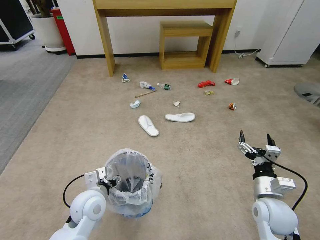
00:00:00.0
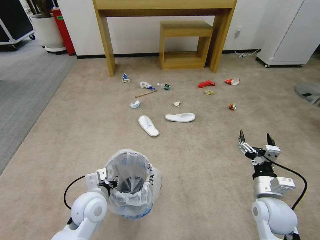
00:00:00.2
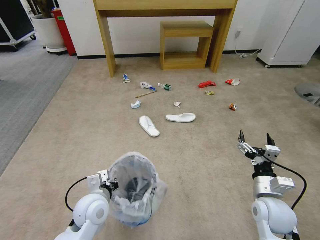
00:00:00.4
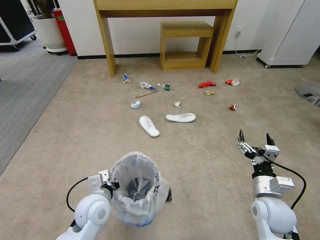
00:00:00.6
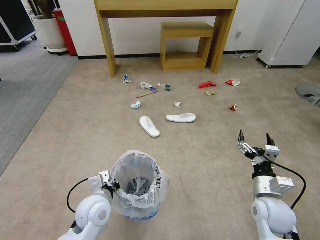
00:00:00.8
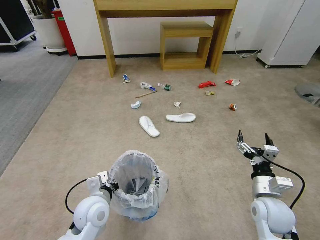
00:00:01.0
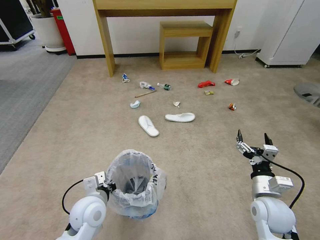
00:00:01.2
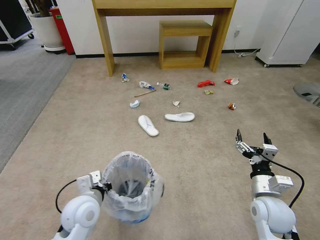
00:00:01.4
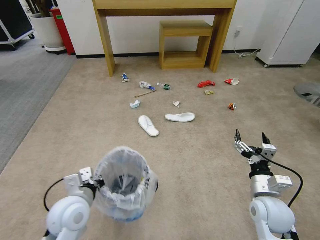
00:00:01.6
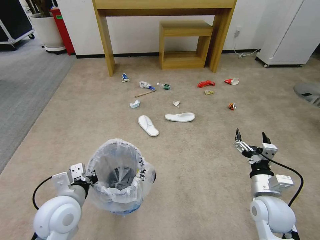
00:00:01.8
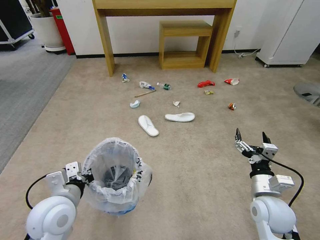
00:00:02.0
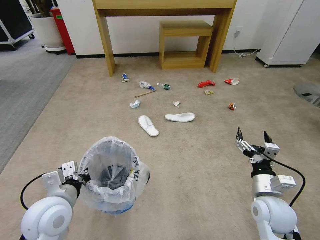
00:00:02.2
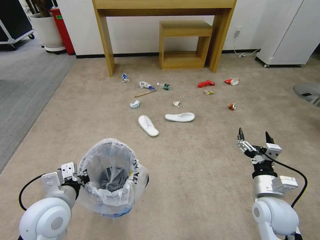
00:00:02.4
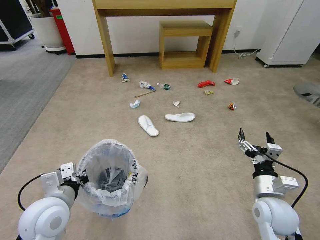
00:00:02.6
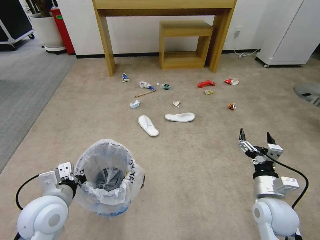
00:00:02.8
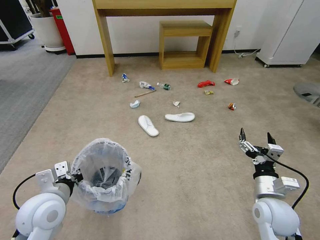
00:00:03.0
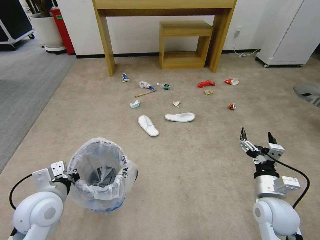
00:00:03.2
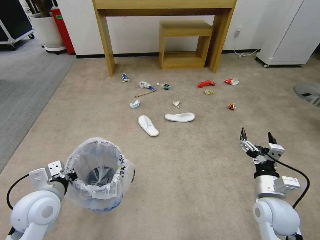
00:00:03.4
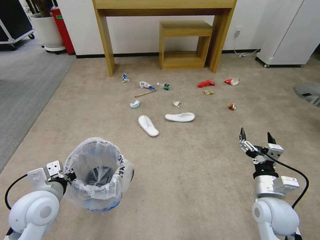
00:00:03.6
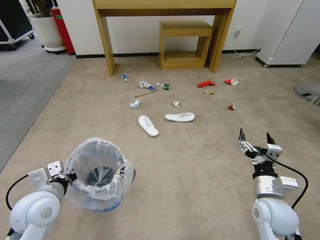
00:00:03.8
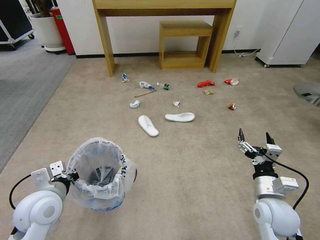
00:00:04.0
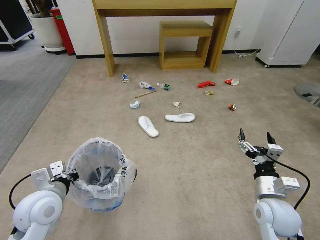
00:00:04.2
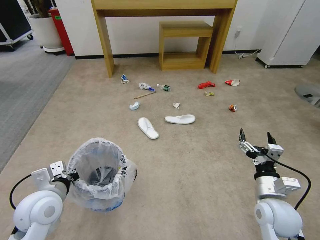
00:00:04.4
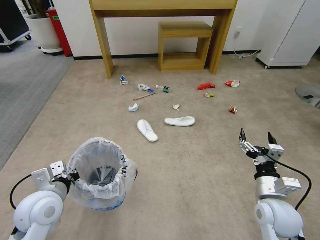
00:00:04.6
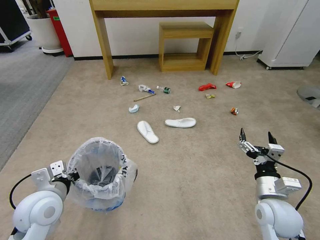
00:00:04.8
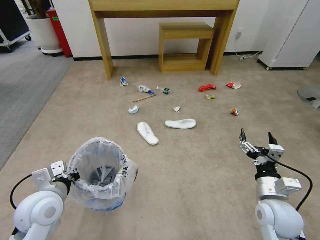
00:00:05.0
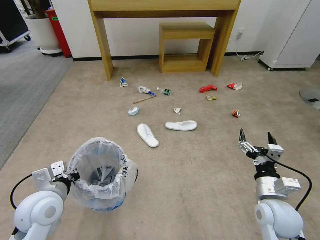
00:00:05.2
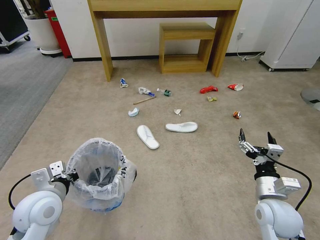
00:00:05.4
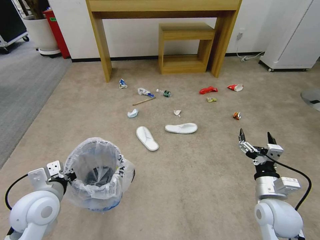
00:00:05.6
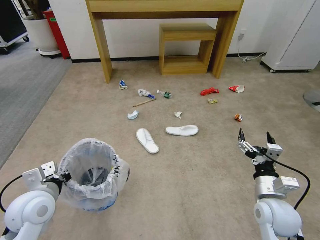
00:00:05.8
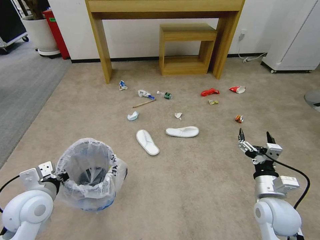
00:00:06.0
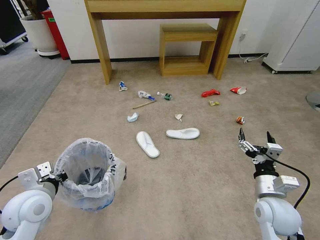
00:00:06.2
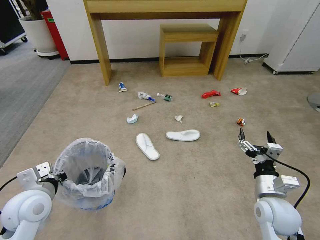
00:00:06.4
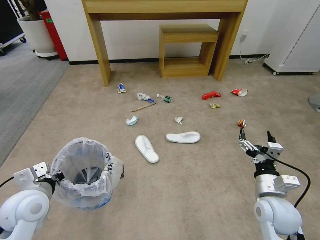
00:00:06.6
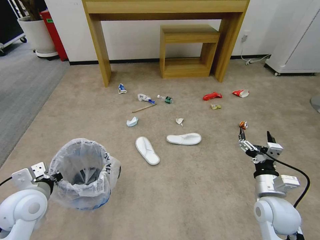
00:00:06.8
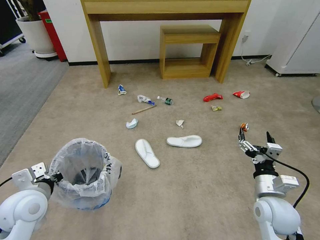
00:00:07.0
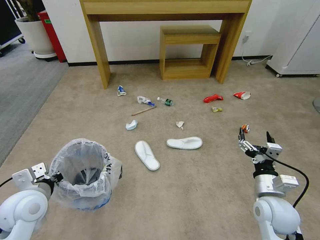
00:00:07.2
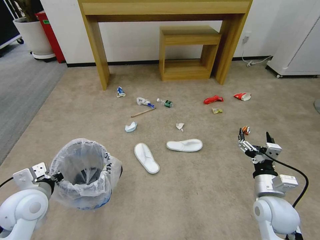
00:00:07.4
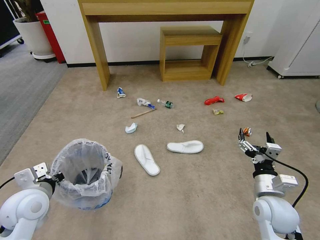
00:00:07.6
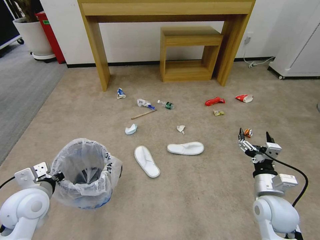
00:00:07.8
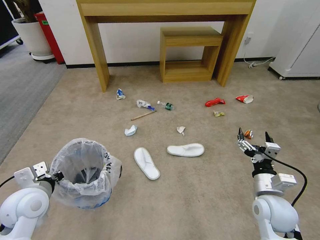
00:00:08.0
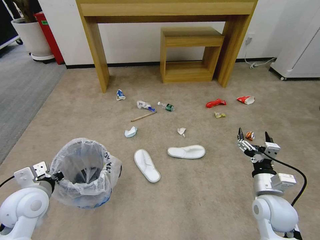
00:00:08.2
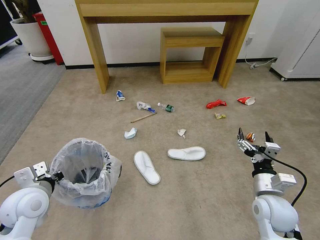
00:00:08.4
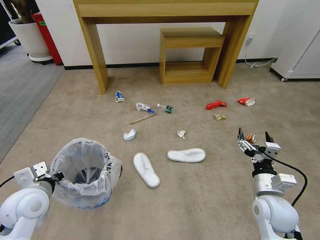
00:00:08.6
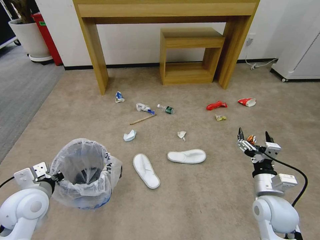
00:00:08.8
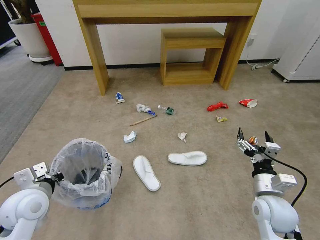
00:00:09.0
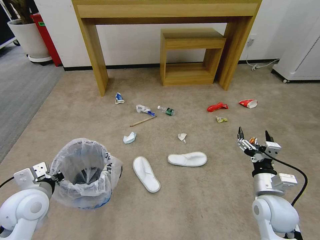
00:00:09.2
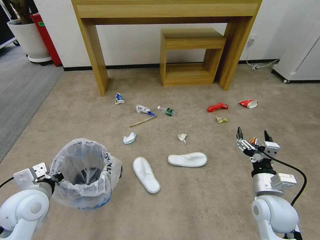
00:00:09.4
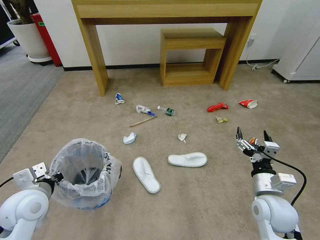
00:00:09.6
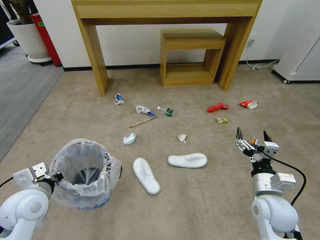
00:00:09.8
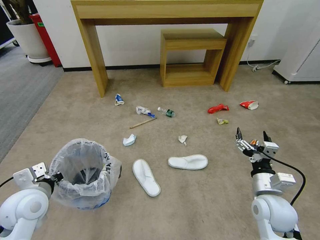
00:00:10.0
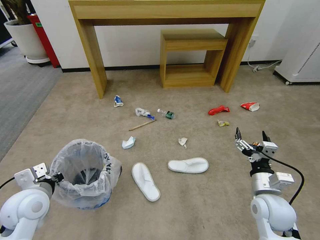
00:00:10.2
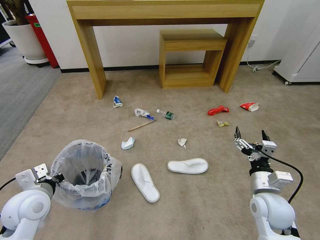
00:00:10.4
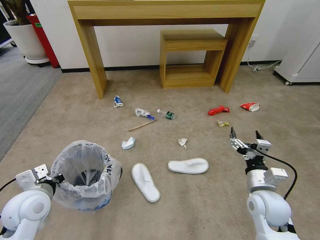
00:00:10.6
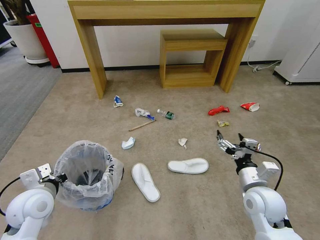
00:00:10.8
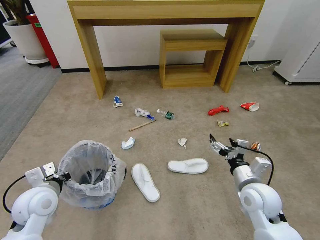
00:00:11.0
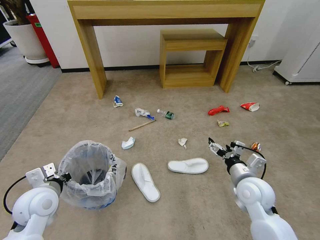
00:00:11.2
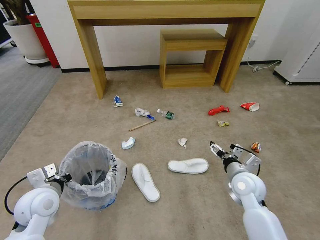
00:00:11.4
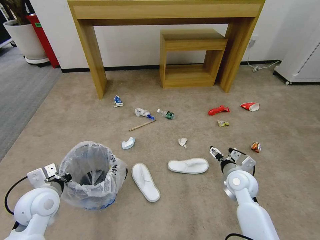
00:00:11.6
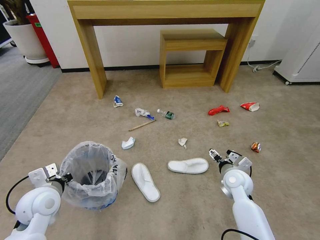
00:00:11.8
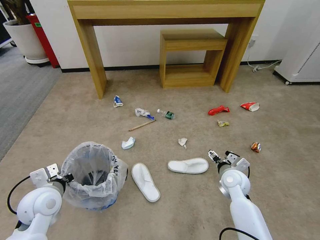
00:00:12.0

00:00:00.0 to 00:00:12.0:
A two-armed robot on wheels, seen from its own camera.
Task of the whole recording: Pick up the trash bin and place the garbage on the floor into it.
00:00:00.0 to 00:00:01.6: The left gripper shifts by some 5 cm, and closes up.
00:00:01.6 to 00:00:03.0: The left gripper moves to the left, some 5 cm.
00:00:03.0 to 00:00:04.4: There are only small adjustments of the grippers.
00:00:07.6 to 00:00:10.4: Both grippers stay put.
00:00:10.4 to 00:00:12.0: The right gripper travels forward and downward by approximately 10 cm.

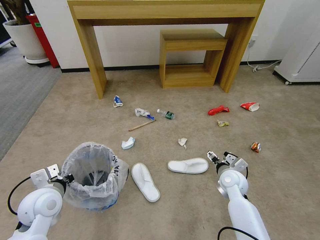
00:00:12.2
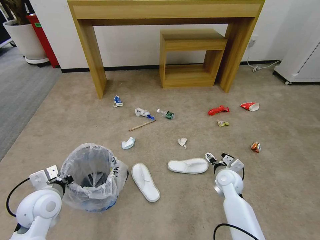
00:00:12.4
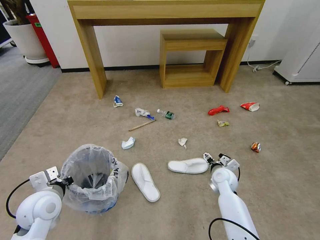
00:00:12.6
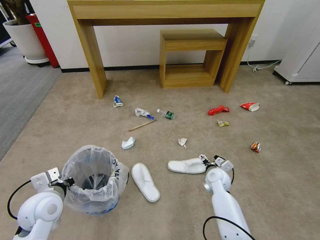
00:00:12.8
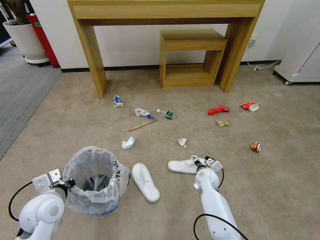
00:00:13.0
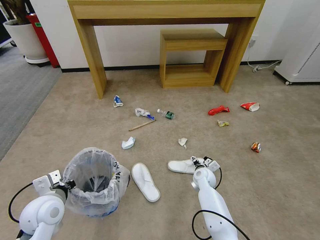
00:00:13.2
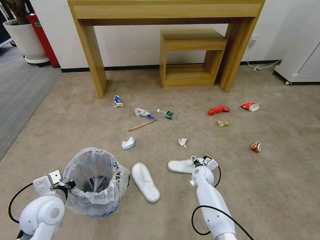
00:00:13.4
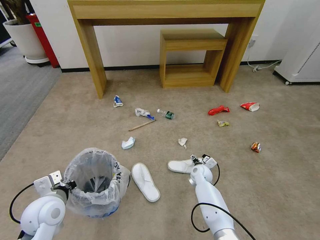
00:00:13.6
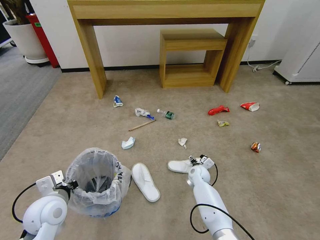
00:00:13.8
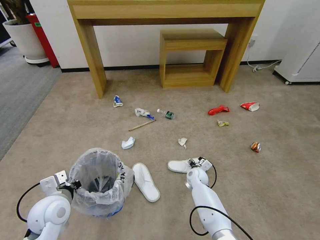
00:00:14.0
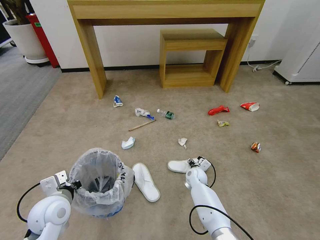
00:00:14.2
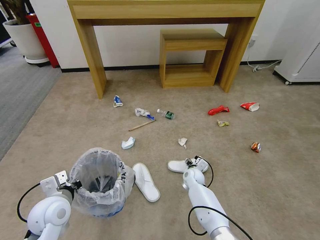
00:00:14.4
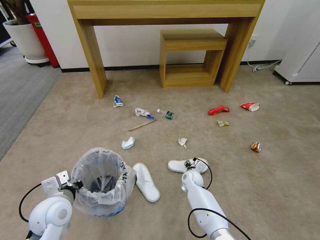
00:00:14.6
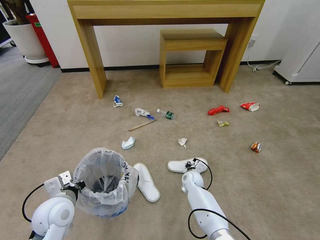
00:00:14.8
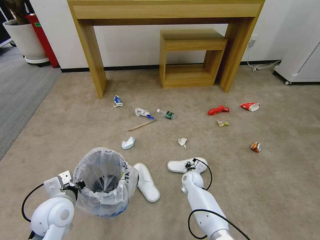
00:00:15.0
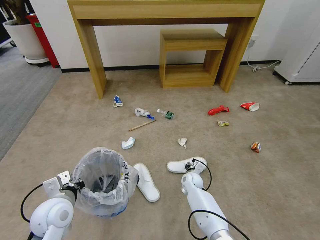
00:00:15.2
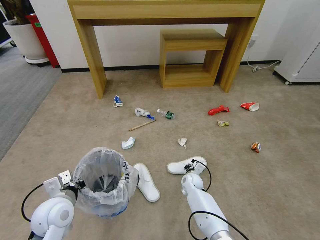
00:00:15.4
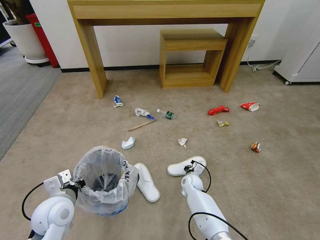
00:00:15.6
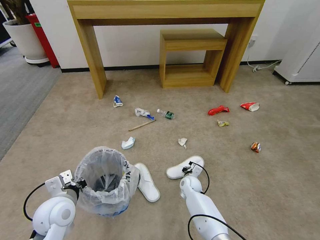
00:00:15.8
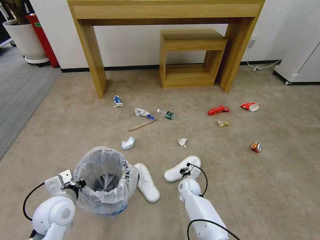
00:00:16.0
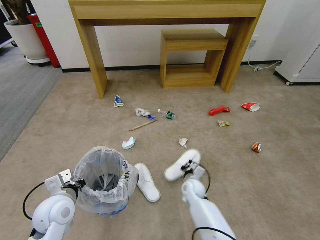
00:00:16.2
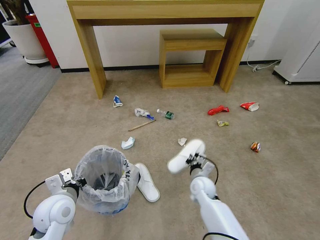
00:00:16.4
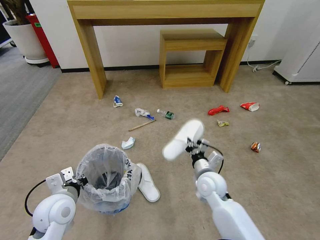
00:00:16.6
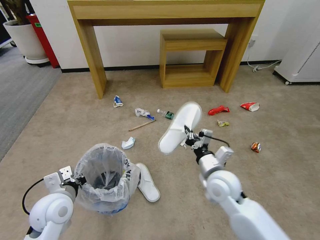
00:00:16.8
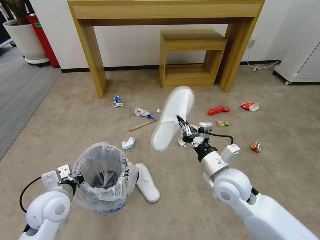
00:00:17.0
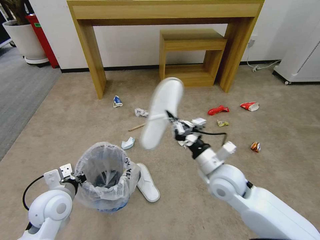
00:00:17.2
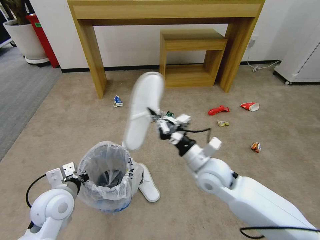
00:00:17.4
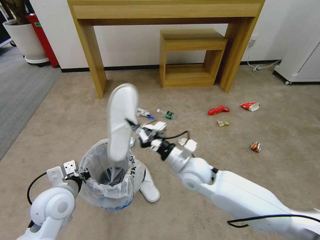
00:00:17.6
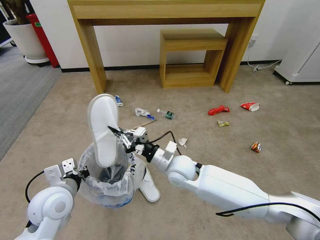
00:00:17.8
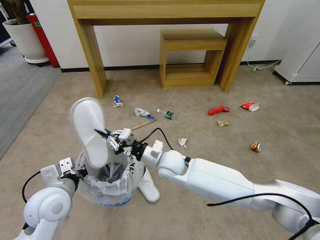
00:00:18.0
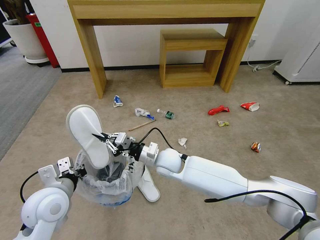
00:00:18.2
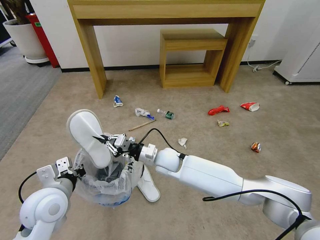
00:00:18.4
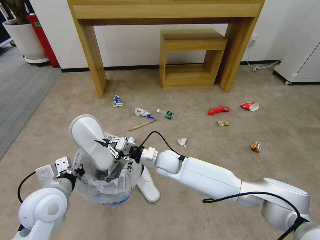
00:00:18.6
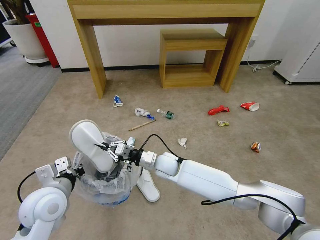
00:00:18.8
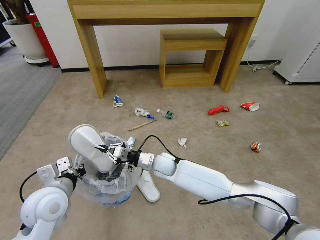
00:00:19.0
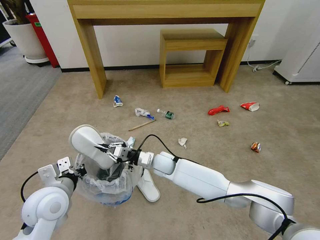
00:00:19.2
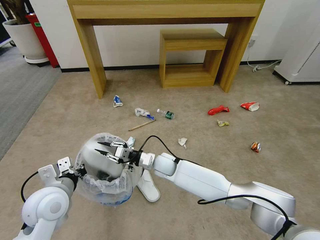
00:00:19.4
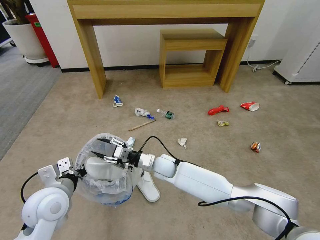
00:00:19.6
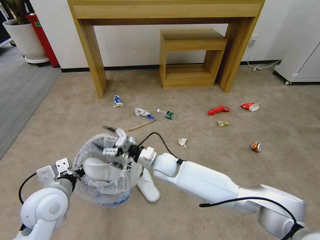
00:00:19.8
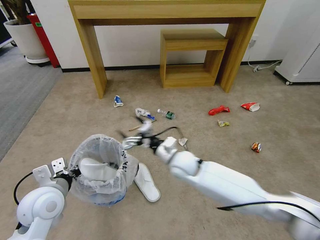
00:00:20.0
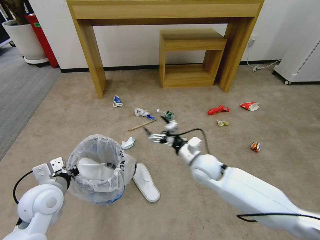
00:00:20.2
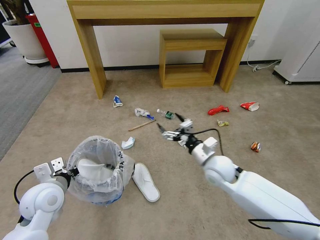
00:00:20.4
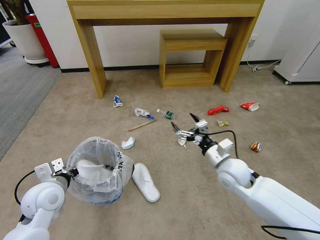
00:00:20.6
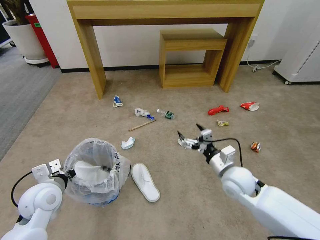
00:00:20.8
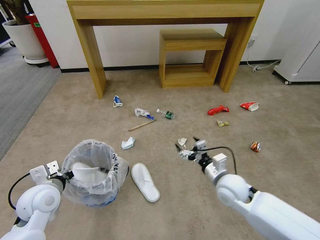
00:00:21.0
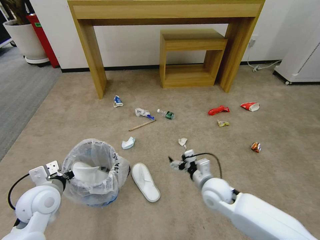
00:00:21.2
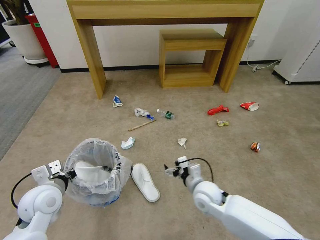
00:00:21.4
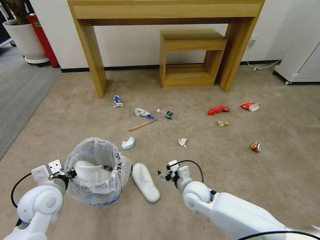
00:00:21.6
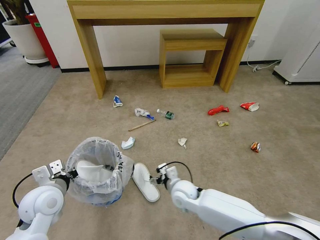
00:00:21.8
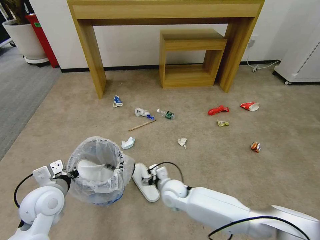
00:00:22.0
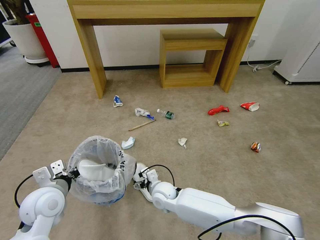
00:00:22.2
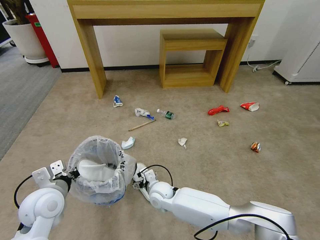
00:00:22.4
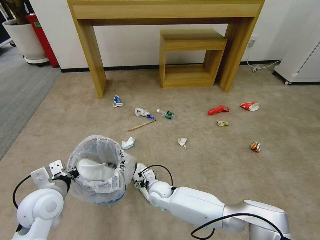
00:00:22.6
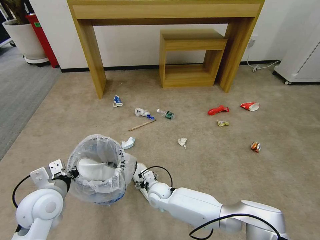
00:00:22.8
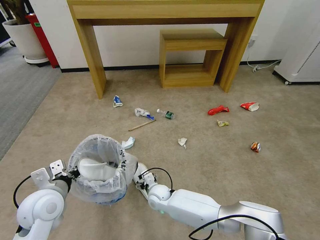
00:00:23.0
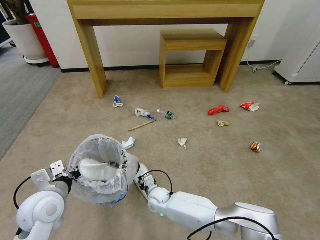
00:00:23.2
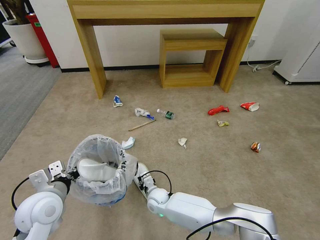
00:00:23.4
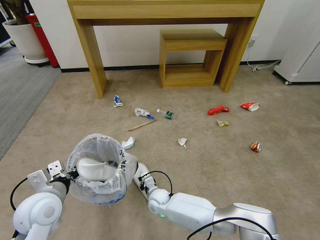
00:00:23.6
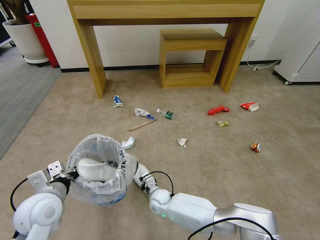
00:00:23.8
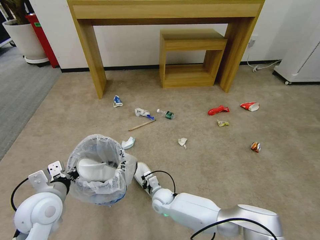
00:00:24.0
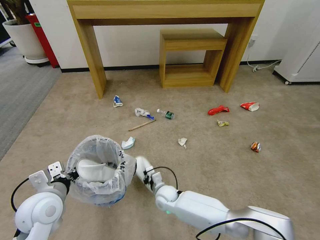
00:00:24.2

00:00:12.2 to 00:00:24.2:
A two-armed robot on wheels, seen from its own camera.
Task of the whole recording: Pick up the trash bin and place the garbage on the floor into it.
00:00:12.2 to 00:00:13.8: The right gripper travels downward, to the left and forward by about 15 cm.
00:00:13.8 to 00:00:15.2: The right gripper closes up.
00:00:15.2 to 00:00:16.6: The right gripper is displaced upward and backward by roughly 20 cm, and closes.
00:00:16.6 to 00:00:18.2: The right gripper heads to the left and forward, covering about 15 cm.
00:00:18.2 to 00:00:19.8: The right gripper opens up.
00:00:19.8 to 00:00:21.2: The right gripper goes roughly 20 cm to the right and backward.
00:00:21.2 to 00:00:22.6: The right gripper heads to the left and downward, covering approximately 20 cm.
00:00:22.6 to 00:00:24.2: The right gripper closes its fingers.
